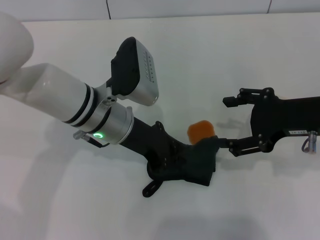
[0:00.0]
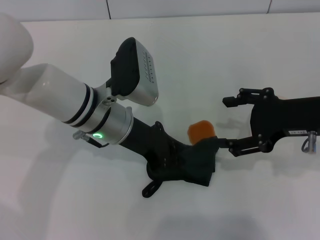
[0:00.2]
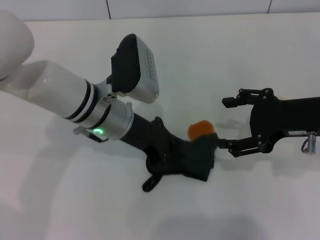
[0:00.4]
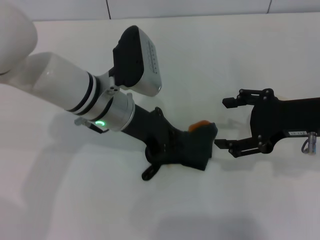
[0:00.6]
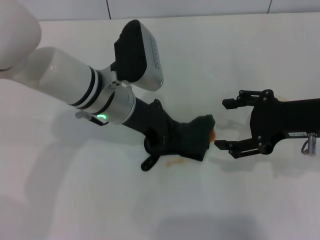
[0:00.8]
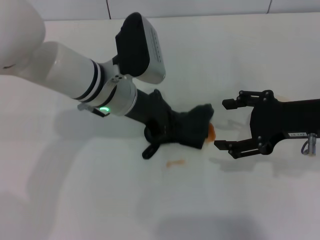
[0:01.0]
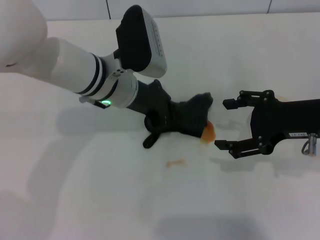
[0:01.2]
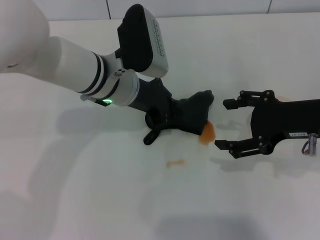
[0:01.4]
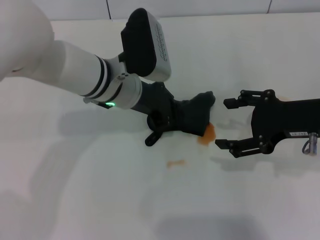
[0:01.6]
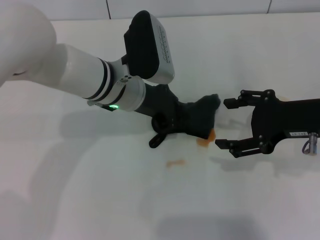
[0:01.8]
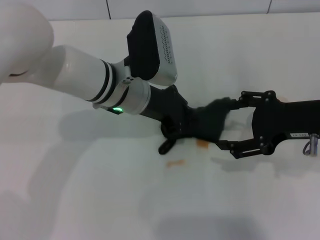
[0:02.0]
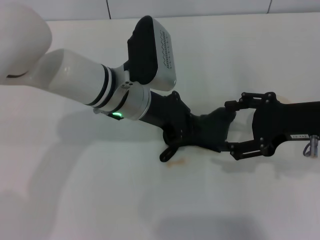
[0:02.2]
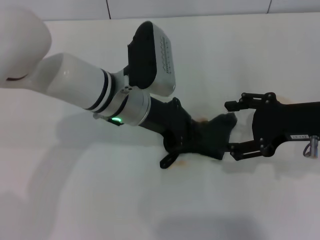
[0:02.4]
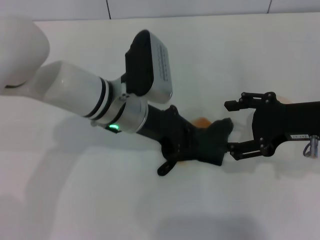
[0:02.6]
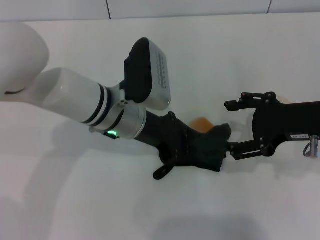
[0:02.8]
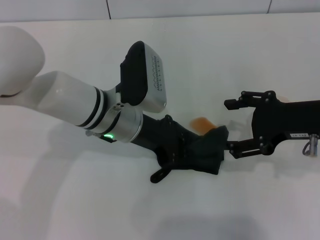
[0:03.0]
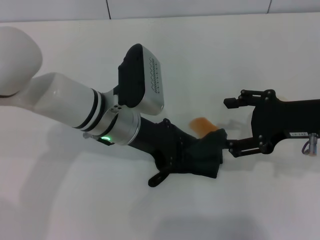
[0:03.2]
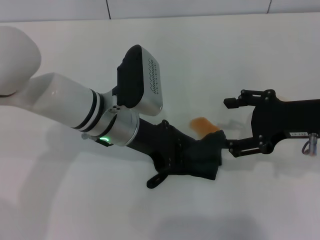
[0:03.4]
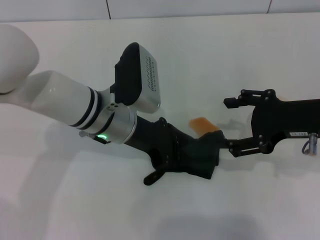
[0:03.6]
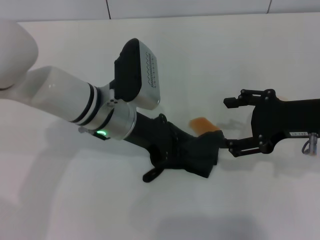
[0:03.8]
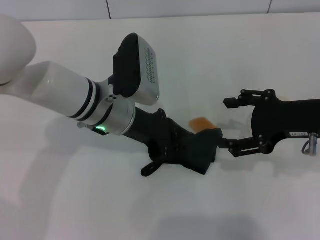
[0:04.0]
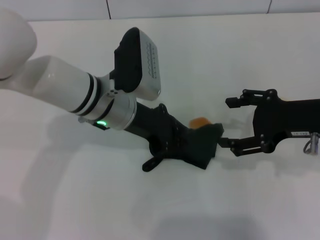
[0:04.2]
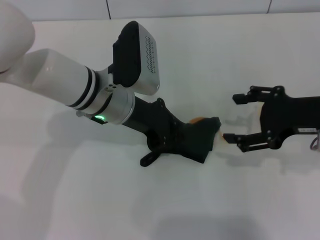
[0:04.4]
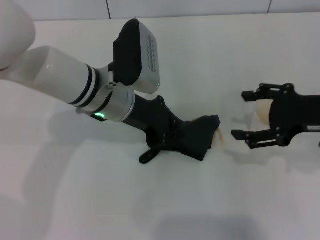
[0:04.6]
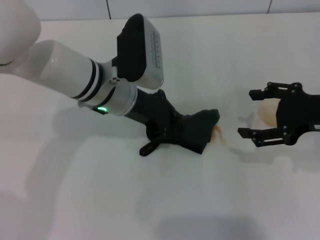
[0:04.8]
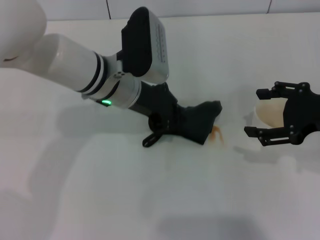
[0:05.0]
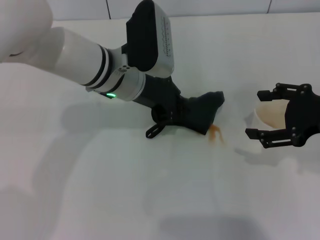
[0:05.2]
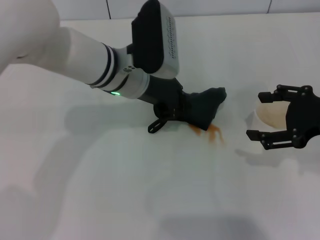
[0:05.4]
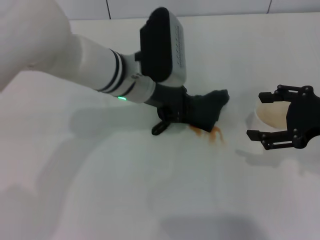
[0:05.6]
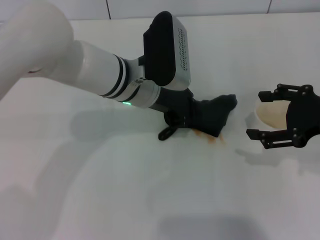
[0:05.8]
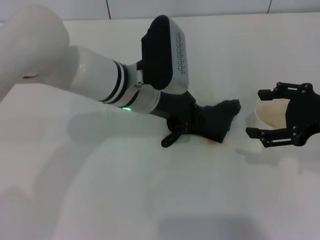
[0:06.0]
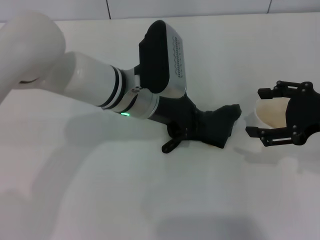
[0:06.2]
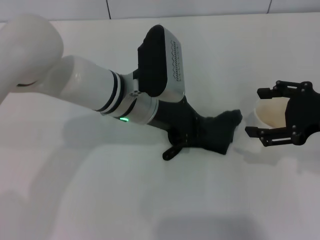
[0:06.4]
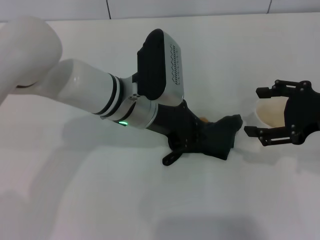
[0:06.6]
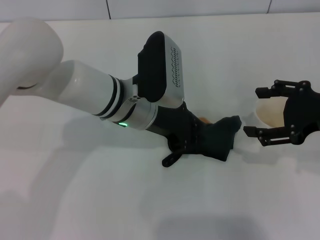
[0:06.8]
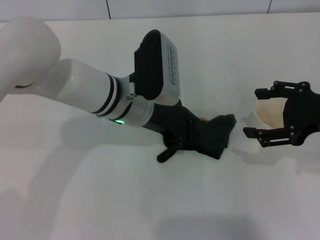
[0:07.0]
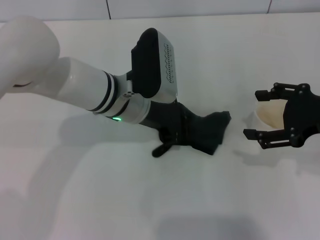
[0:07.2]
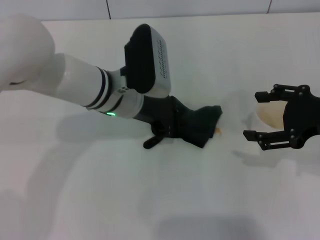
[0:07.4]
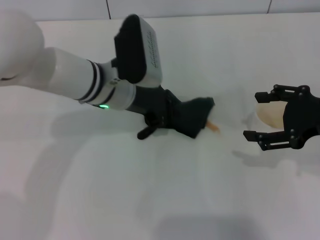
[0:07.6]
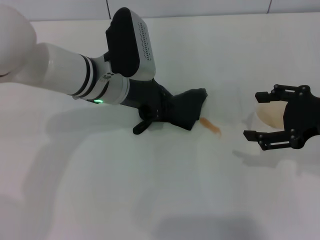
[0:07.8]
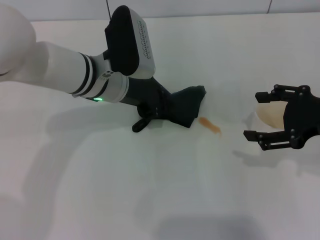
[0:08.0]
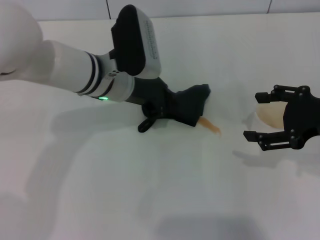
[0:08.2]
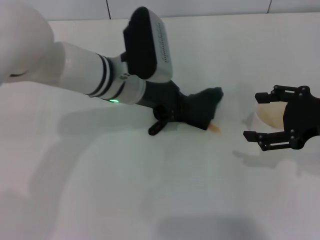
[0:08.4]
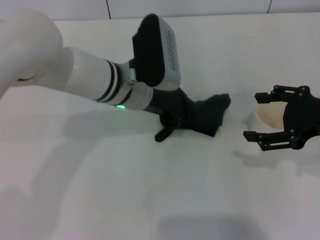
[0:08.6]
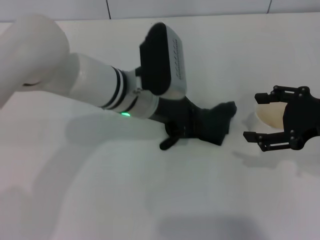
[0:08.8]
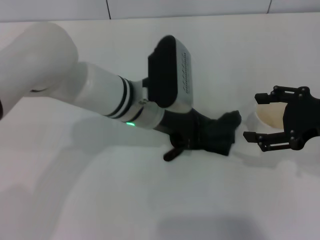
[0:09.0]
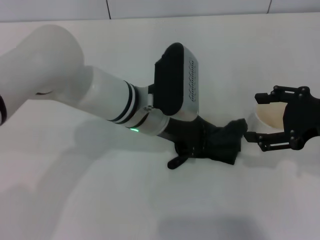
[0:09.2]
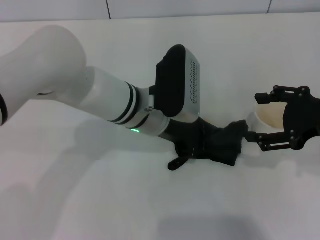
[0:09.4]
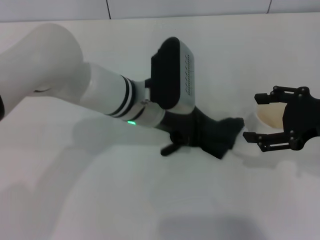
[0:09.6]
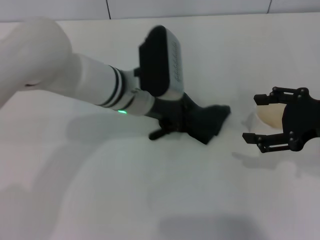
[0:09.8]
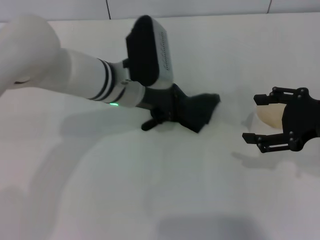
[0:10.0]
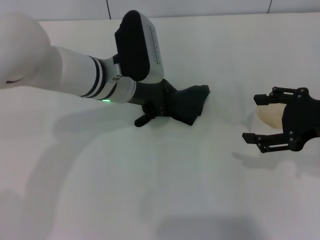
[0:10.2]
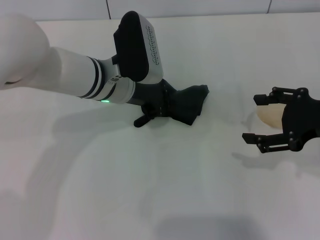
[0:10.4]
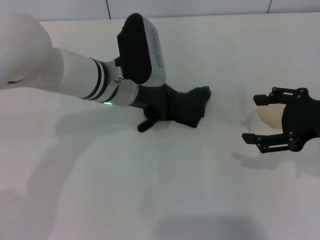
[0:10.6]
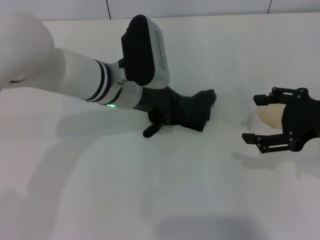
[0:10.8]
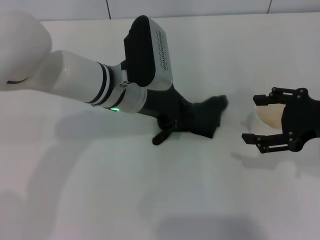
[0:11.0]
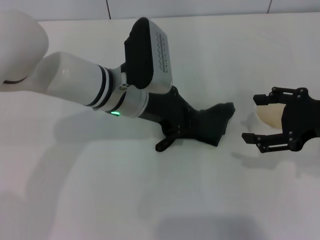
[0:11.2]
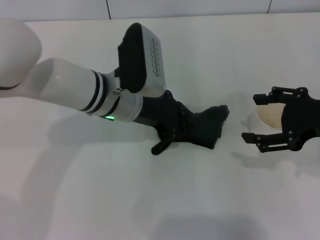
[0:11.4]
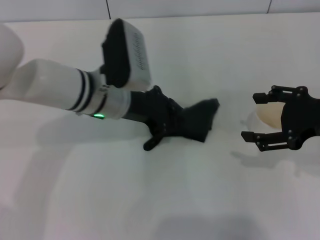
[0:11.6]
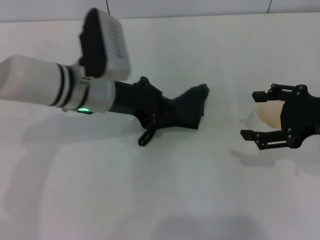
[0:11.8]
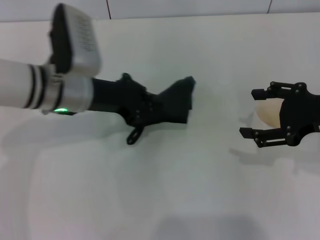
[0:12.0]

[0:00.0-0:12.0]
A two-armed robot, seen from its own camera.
Step, 0:00.0 to 0:11.2: Wipe the stains off the table with the left gripper.
0:03.0 to 0:04.4: There are only small adjustments of the grippers.
0:06.0 to 0:09.0: The grippers make only small movements.
0:09.0 to 0:10.4: The left gripper shifts by some 5 cm.
0:10.4 to 0:12.0: The left gripper heads to the left, covering some 5 cm.

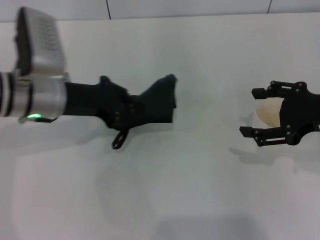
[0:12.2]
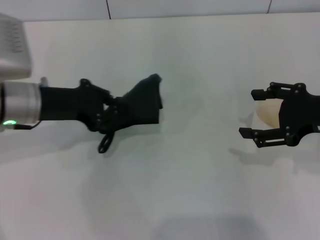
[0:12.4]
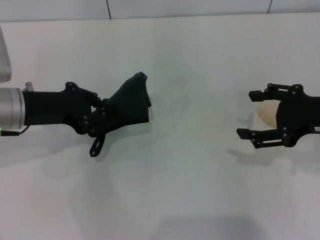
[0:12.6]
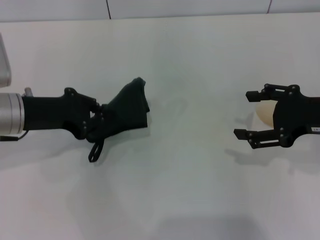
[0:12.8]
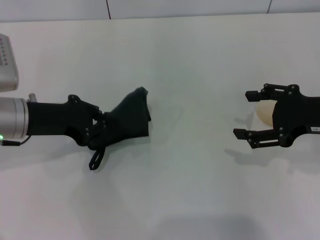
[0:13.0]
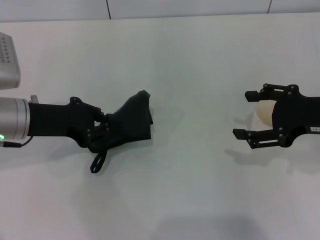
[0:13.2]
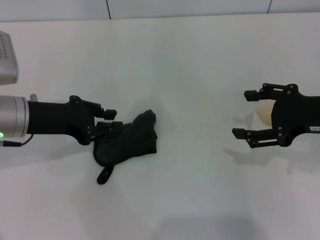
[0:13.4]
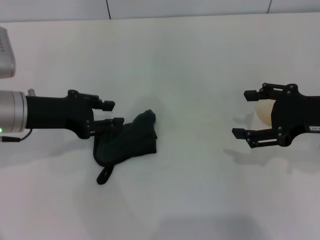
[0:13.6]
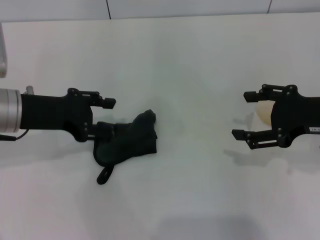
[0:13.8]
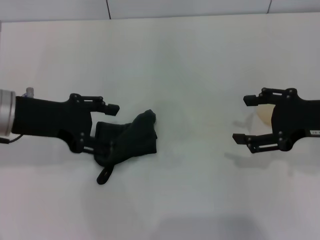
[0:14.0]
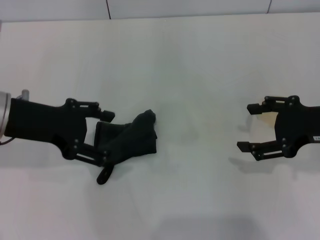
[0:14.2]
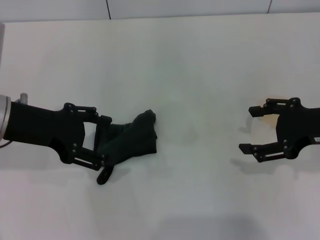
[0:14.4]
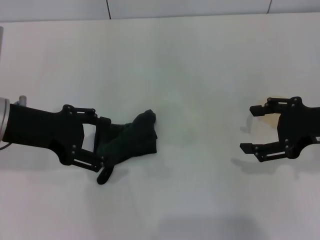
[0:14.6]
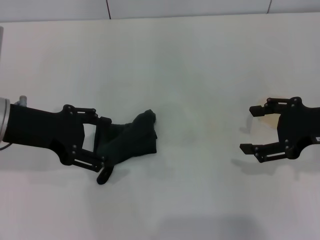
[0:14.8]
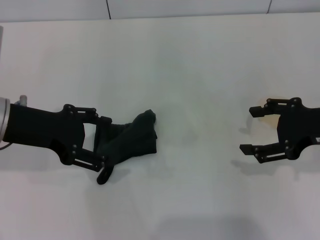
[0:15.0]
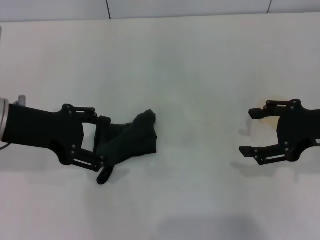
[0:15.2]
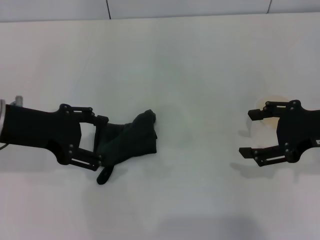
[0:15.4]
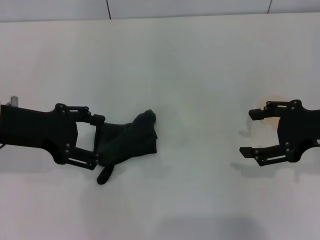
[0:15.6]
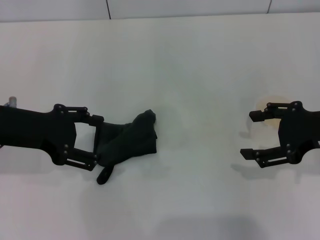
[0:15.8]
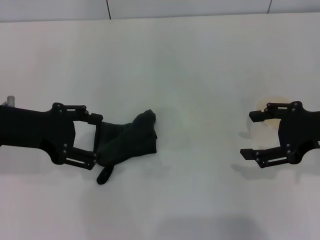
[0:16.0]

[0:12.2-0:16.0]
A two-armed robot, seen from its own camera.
Step, 0:12.2 to 0:13.6: Place the rag on the table with the left gripper.
0:12.2 to 0:13.4: The left gripper changes place by about 5 cm.
0:13.4 to 0:14.8: The left gripper opens.
0:14.8 to 0:16.0: The two grippers keep their place.

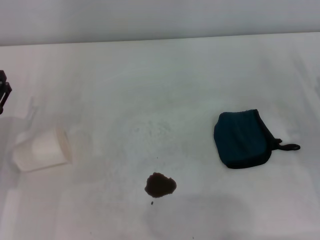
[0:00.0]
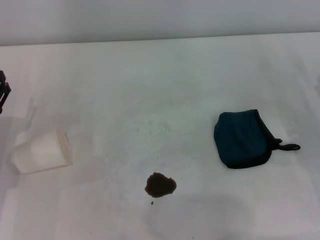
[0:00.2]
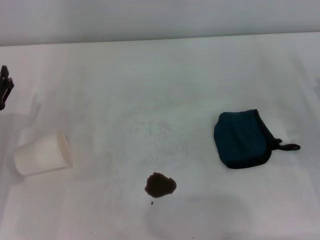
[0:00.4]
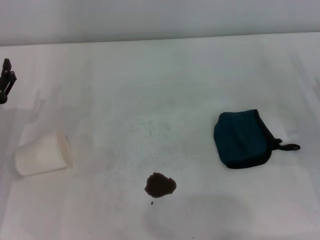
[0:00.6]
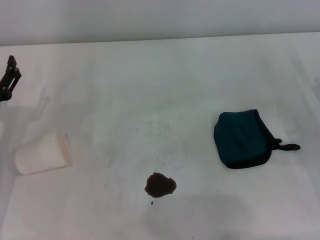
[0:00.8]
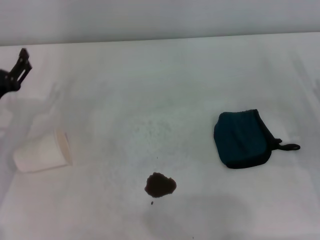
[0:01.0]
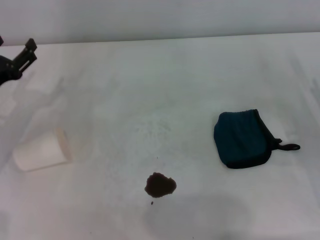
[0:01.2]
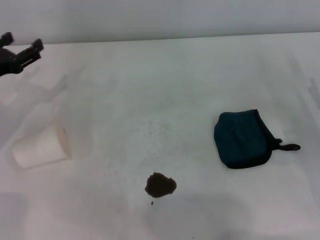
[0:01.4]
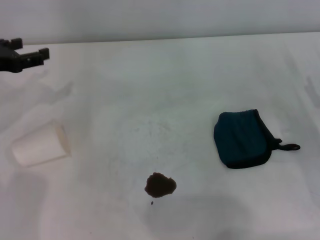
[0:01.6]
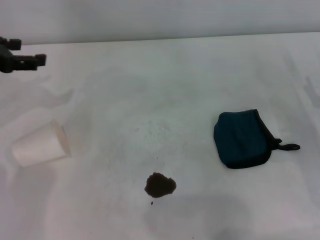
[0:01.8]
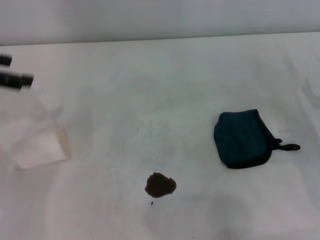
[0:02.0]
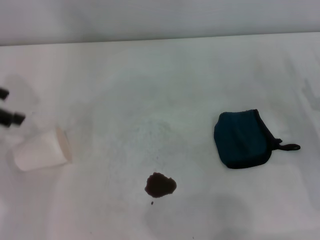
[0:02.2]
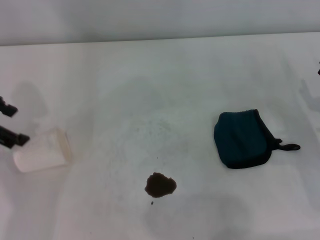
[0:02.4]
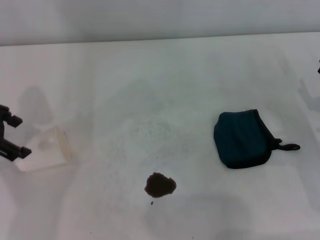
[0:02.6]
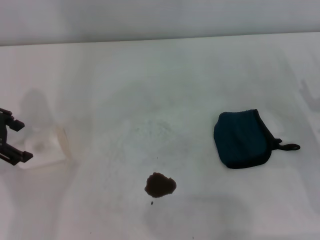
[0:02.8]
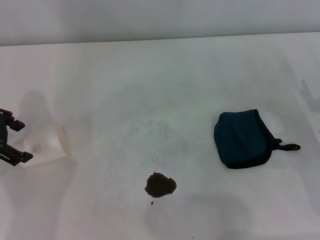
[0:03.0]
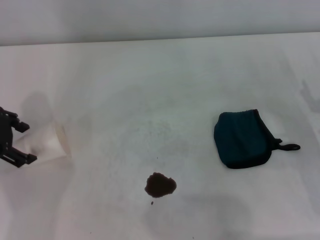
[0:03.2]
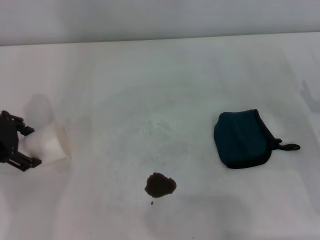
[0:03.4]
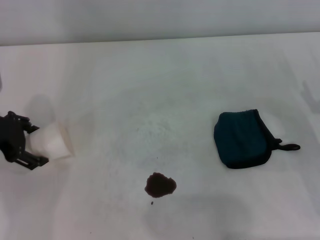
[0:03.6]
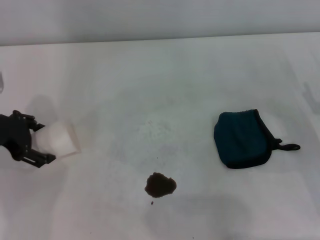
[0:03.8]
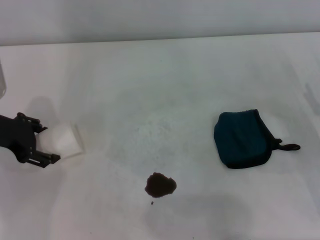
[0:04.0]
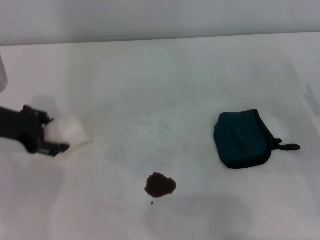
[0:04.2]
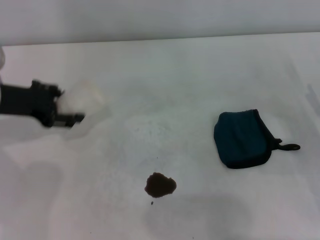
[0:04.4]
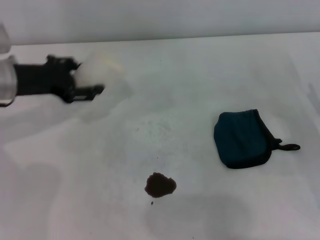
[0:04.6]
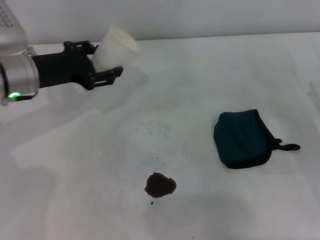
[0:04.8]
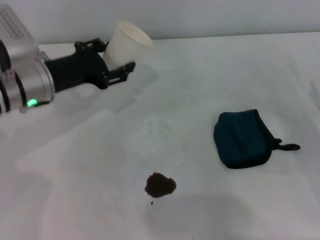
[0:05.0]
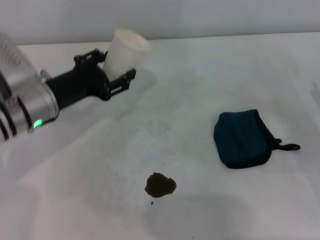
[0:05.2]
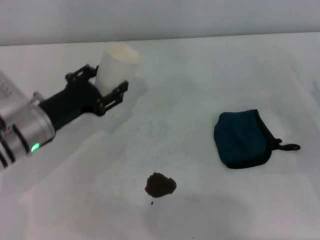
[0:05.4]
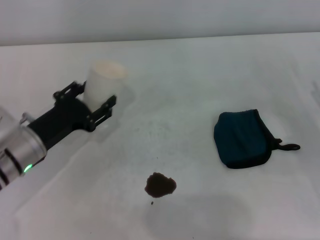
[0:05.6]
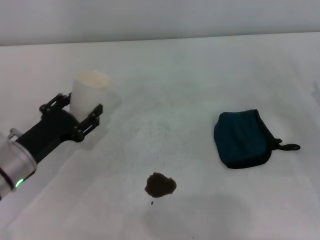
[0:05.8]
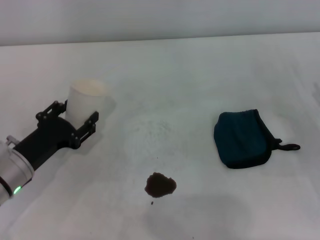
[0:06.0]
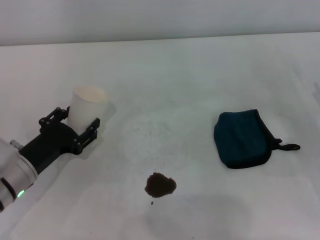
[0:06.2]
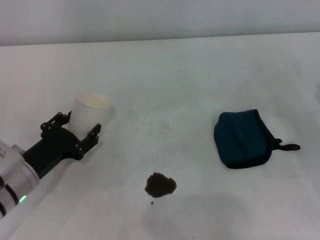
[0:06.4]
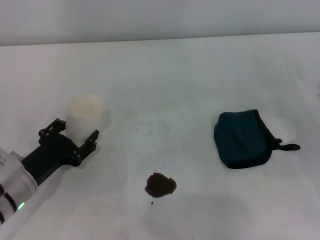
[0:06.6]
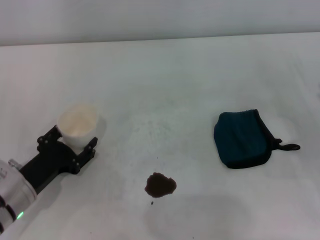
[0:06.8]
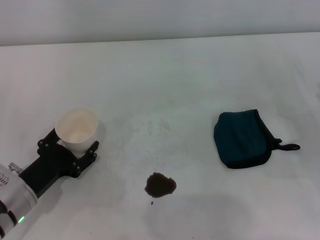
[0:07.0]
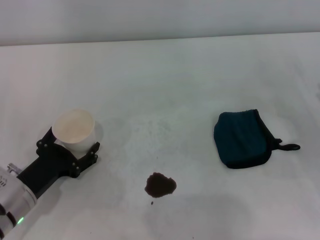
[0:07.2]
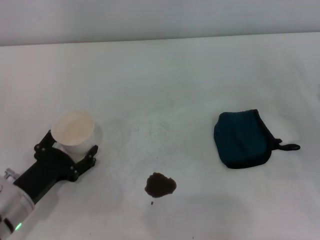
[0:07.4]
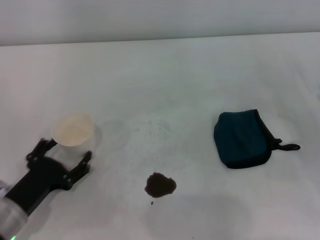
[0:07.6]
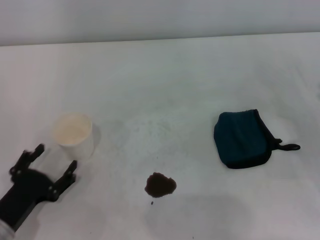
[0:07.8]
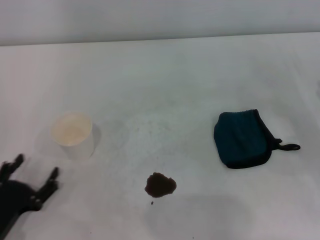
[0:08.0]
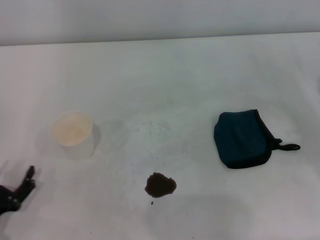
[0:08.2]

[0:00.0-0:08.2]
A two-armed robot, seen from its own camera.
Step, 0:00.0 to 0:03.8: Grasp the paper cup with the left gripper.
Step, 0:04.0 to 0:07.0: Stand the paper cup upright with the left gripper.
0:00.0 to 0:01.6: The left gripper goes some 15 cm upward and forward.
0:03.2 to 0:05.0: The left gripper heads to the right and downward, covering approximately 10 cm, and closes.
0:05.0 to 0:06.6: The left gripper travels backward and downward by about 15 cm.
0:06.6 to 0:08.2: The left gripper is displaced backward and to the left by roughly 10 cm, and opens its fingers.
